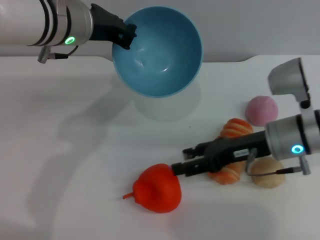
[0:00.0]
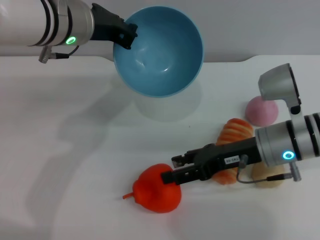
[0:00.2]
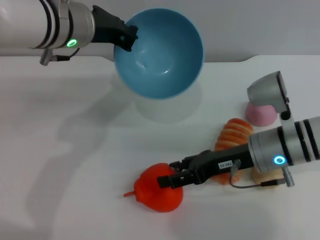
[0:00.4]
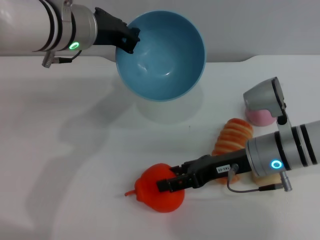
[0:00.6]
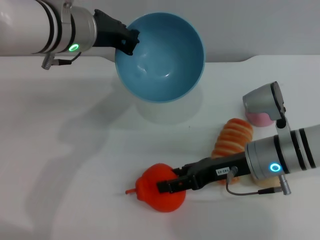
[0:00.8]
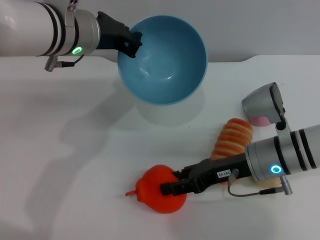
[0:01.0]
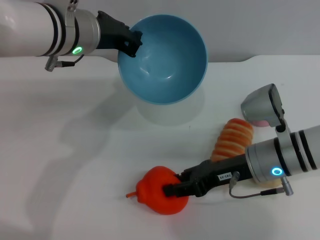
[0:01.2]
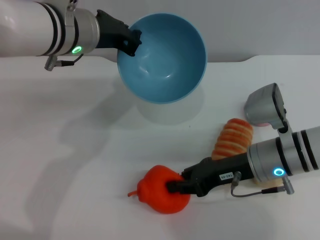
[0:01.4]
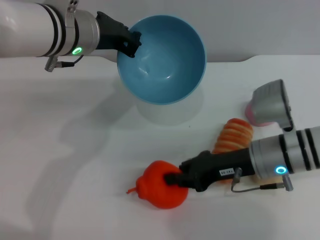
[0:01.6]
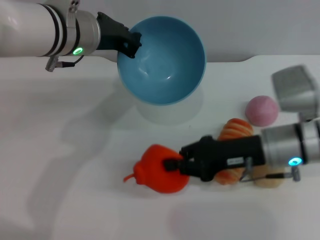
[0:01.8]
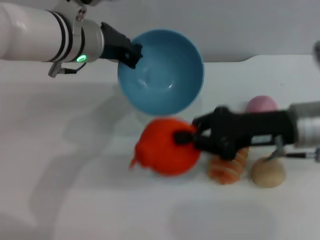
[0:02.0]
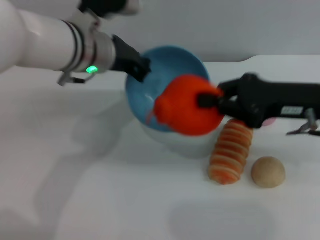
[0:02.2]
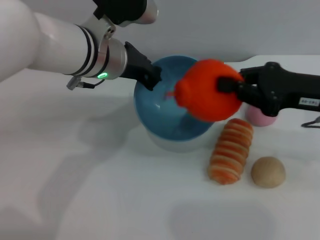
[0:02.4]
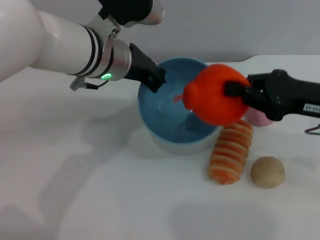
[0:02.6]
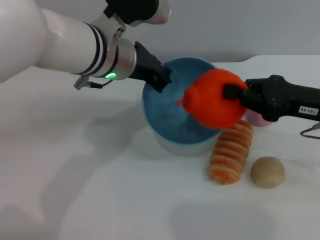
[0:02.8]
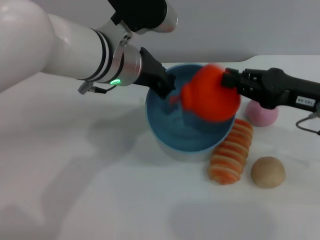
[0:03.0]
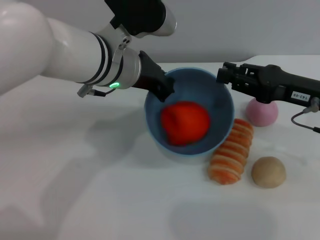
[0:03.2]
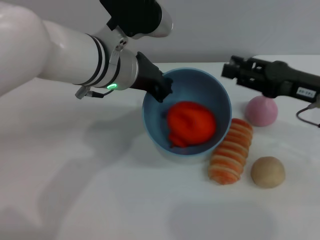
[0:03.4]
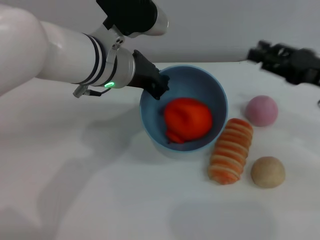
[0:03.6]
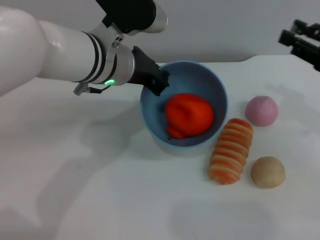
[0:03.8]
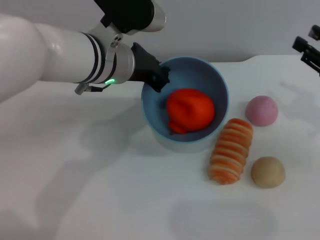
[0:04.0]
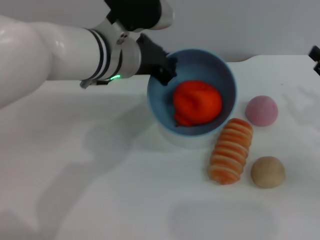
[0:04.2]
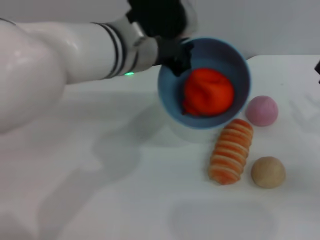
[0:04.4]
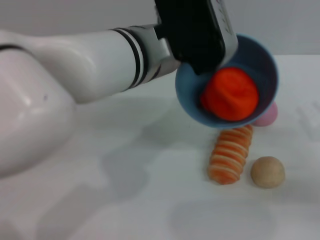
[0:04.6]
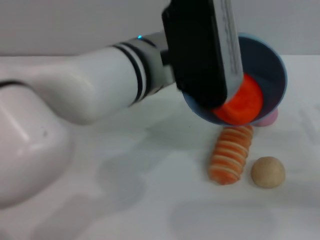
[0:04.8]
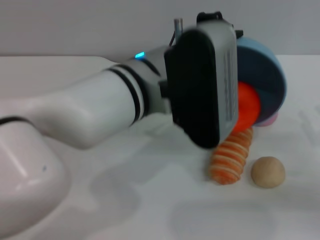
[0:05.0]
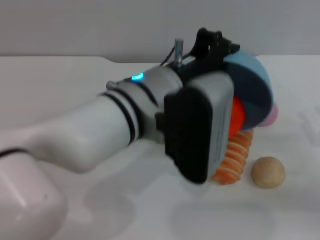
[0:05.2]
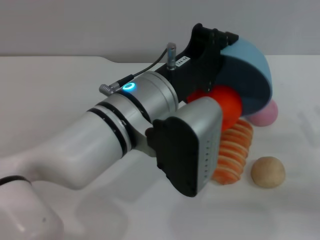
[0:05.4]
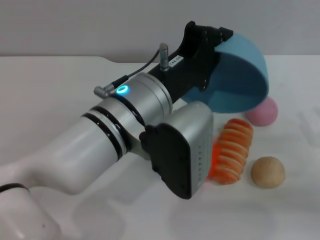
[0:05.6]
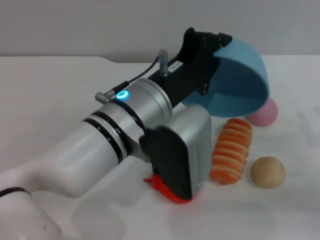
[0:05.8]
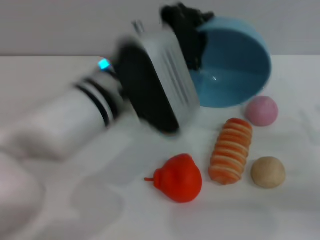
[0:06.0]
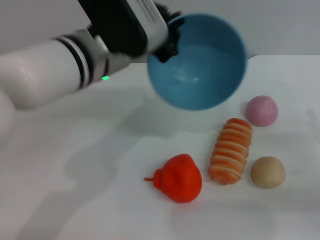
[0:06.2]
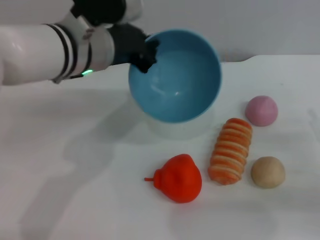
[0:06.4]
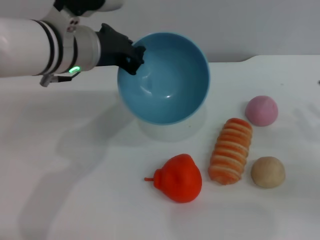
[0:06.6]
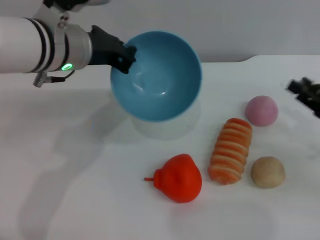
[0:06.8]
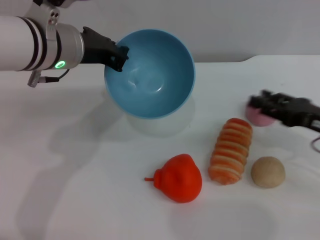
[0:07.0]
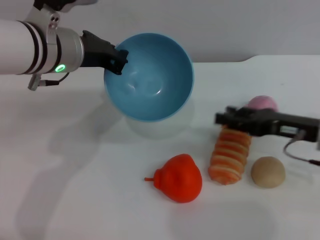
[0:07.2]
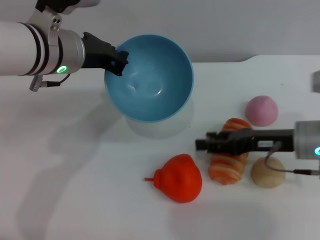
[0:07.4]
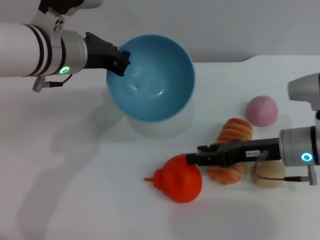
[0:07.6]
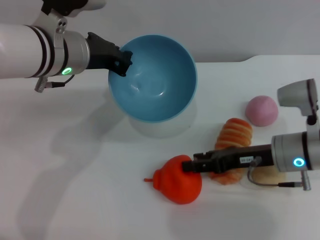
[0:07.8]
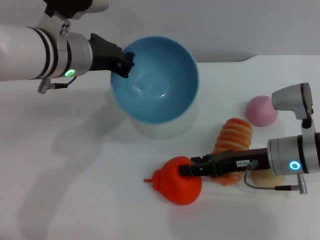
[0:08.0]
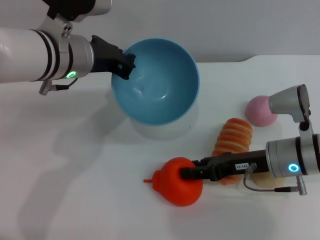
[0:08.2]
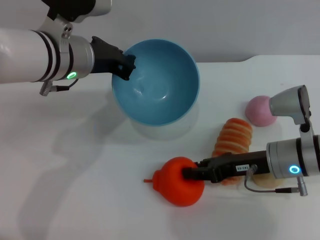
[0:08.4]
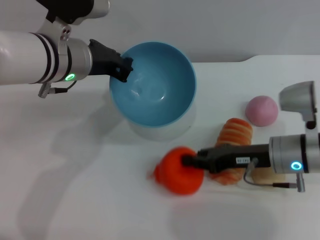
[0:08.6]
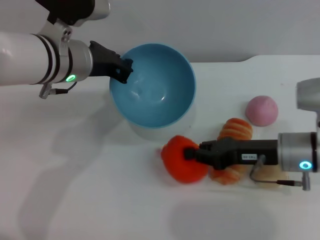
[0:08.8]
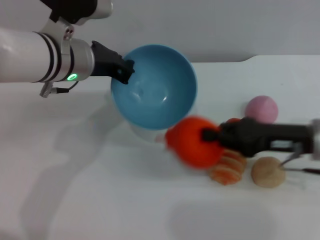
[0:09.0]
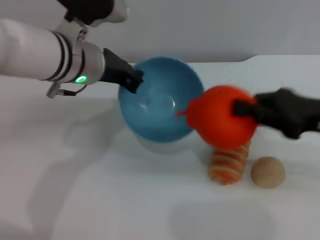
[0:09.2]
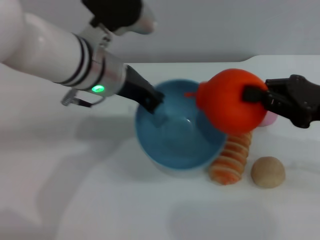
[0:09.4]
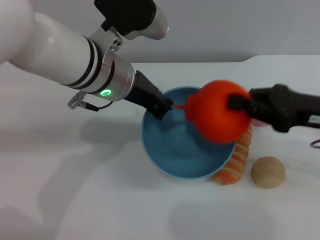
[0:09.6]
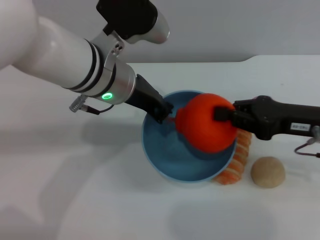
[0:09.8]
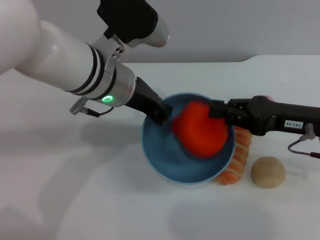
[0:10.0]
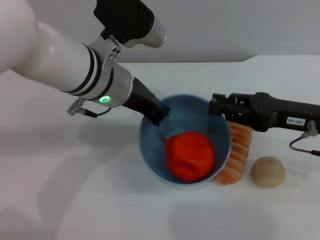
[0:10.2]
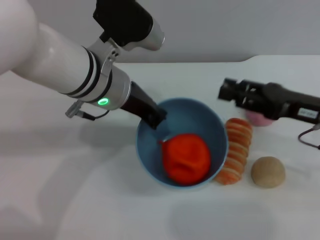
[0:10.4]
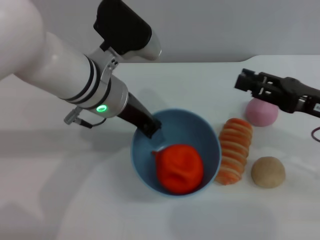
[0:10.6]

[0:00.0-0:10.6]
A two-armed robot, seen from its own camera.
Task of the whole recording: put the orange into the blue bowl and pour it out repeatedly.
Step, 0:00.0 to 0:01.6: Pick up the orange with the right gripper.
Step, 0:01.8 to 0:03.4: Place the orange into the bowl.
Step, 0:03.6 to 0:06.0: Pour the orange out of the bowl.
Step, 0:06.2 to 0:09.0: Pick up the orange with the right gripper.
Step, 0:09.2 to 0:10.2: Place the orange into the bowl.
0:00.0 to 0:01.6: The right gripper closes its fingers.
0:01.6 to 0:03.0: The left gripper goes approximately 5 cm to the right. The right gripper is displaced to the right and upward by about 10 cm.
0:03.0 to 0:04.6: The left gripper moves about 5 cm; the right gripper heads to the right, downward and backward, covering about 15 cm, and opens up.
0:04.6 to 0:06.0: The left gripper shifts by approximately 5 cm.
0:06.0 to 0:07.6: The two grippers go roughly 15 cm to the left and forward.
0:07.6 to 0:09.0: The right gripper closes up.
0:09.0 to 0:10.6: The left gripper shifts by about 5 cm. The right gripper opens up.

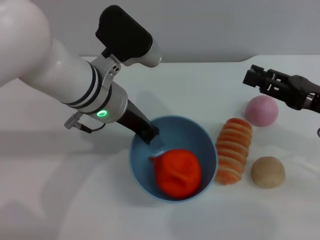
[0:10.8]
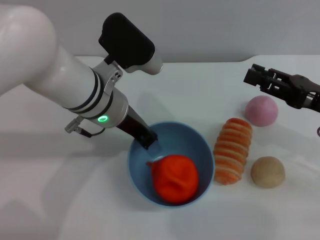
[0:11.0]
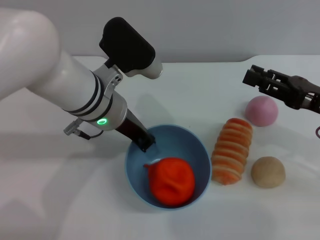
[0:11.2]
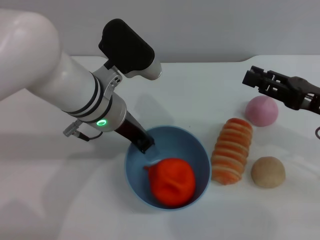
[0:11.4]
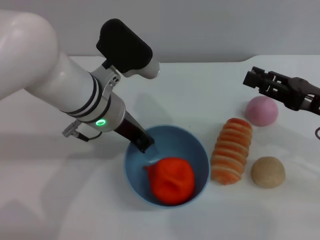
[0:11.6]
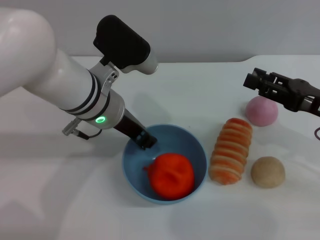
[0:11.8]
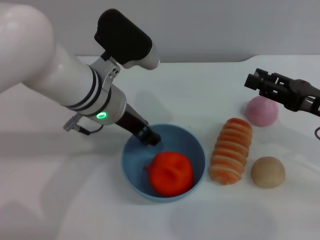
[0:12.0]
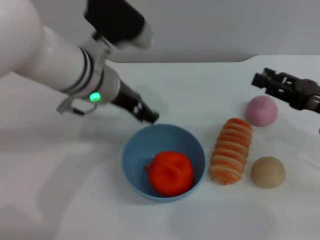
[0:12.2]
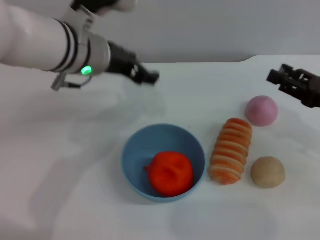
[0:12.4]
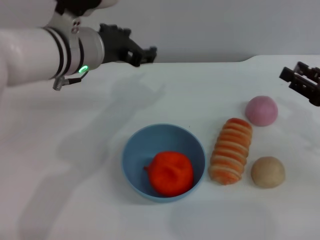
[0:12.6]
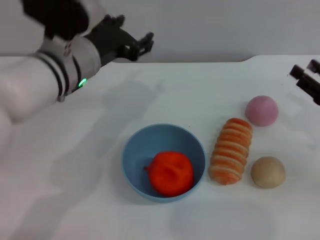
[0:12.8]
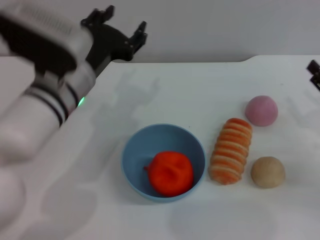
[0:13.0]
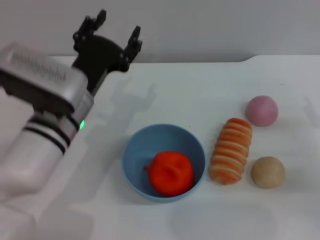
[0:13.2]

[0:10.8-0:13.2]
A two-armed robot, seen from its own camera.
Task of the whole recording: put the orange into the blue bowl and pour it out repeatedly.
Step, 0:10.8 to 0:12.4: Place the bowl on the table.
0:10.8 to 0:12.0: The grippers make only small movements.
0:12.0 to 0:13.2: The left gripper shifts by some 5 cm, and opens. Meanwhile the right gripper travels downward by about 5 cm.
